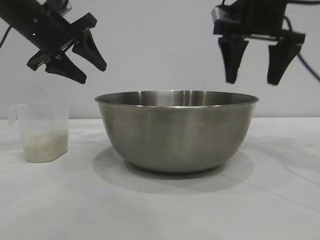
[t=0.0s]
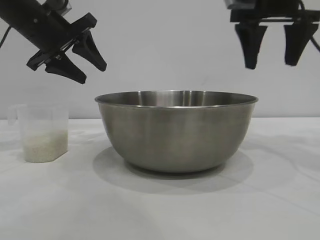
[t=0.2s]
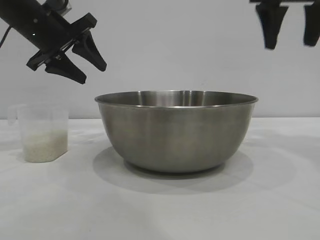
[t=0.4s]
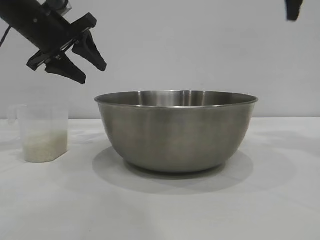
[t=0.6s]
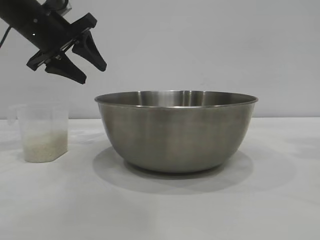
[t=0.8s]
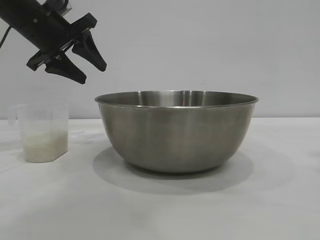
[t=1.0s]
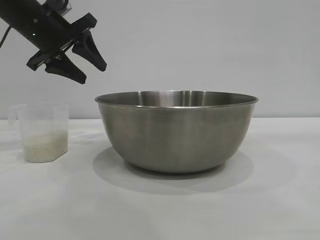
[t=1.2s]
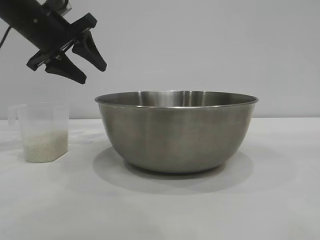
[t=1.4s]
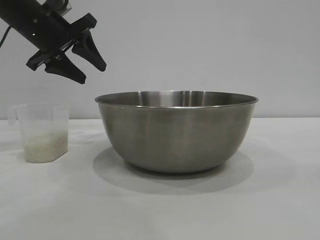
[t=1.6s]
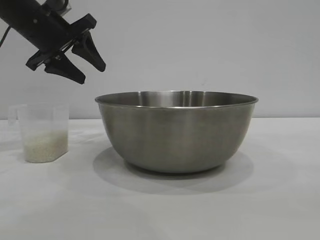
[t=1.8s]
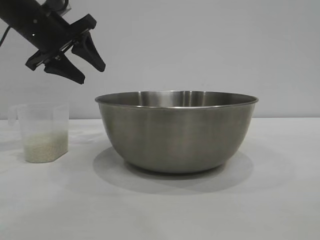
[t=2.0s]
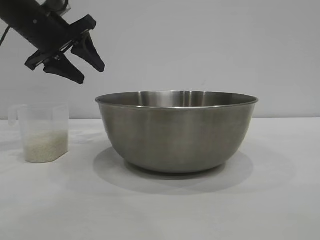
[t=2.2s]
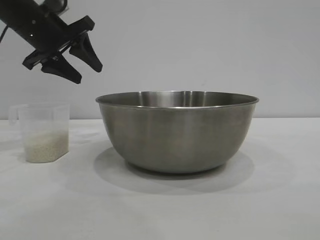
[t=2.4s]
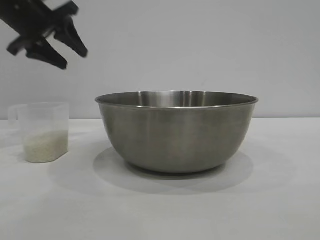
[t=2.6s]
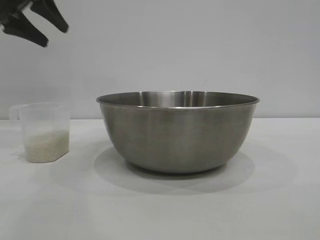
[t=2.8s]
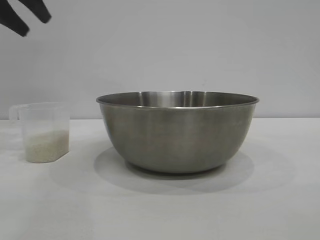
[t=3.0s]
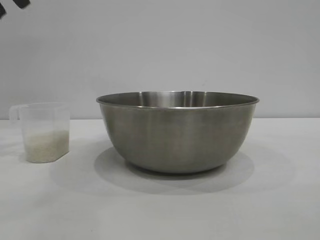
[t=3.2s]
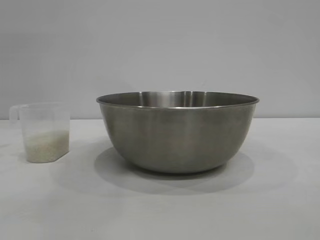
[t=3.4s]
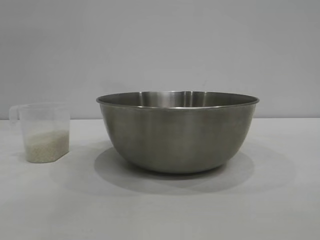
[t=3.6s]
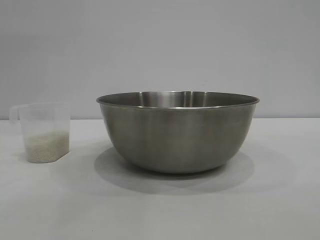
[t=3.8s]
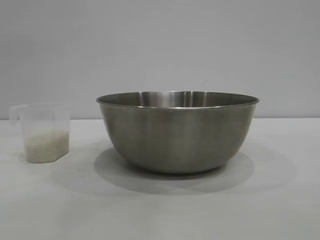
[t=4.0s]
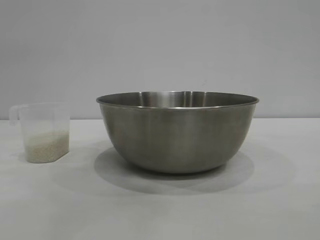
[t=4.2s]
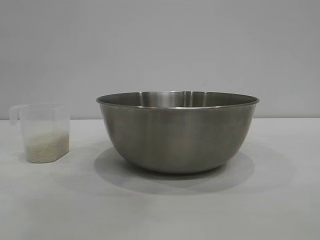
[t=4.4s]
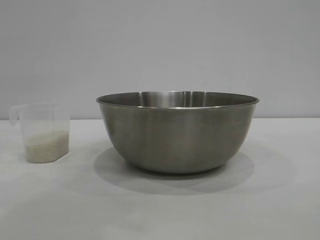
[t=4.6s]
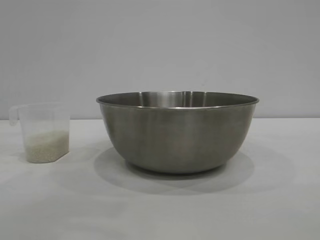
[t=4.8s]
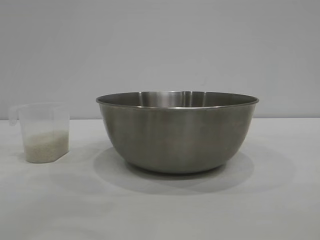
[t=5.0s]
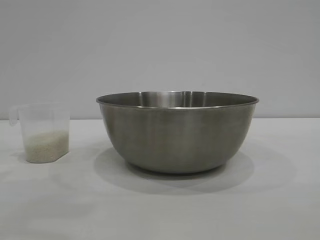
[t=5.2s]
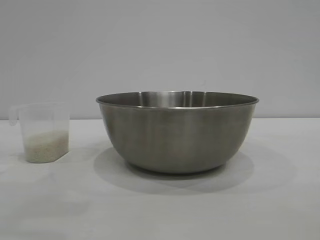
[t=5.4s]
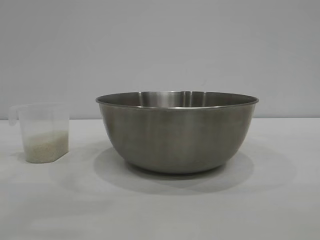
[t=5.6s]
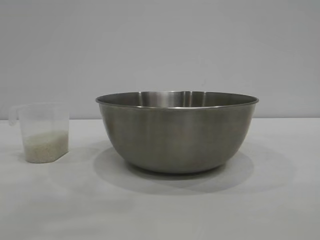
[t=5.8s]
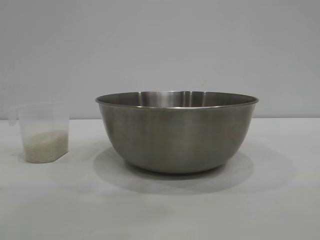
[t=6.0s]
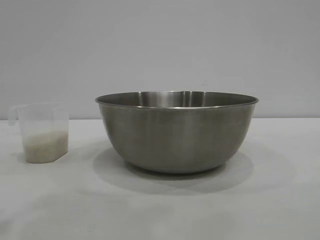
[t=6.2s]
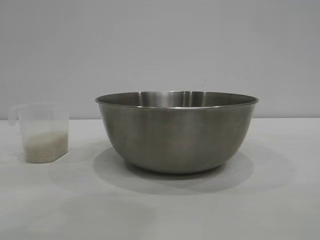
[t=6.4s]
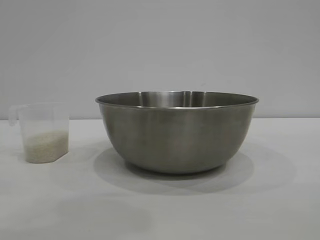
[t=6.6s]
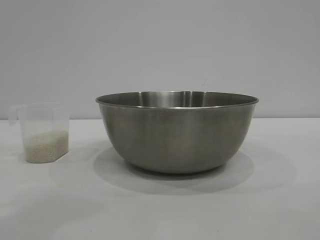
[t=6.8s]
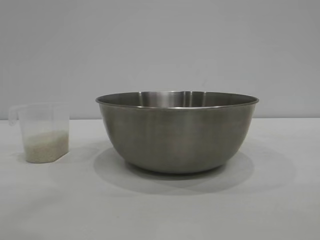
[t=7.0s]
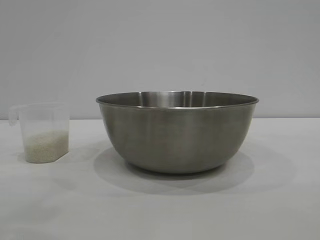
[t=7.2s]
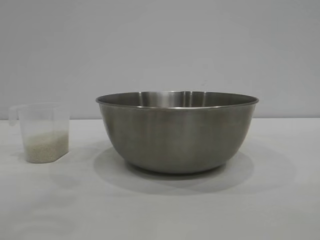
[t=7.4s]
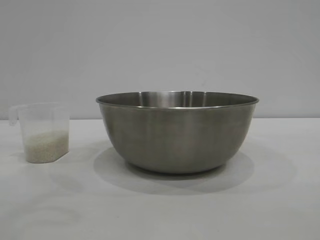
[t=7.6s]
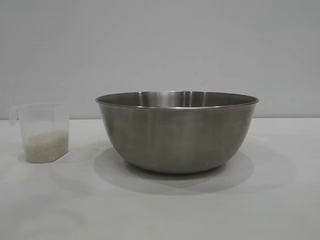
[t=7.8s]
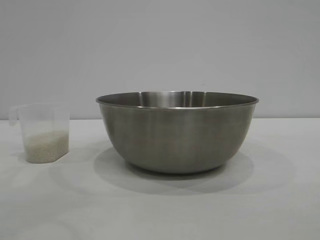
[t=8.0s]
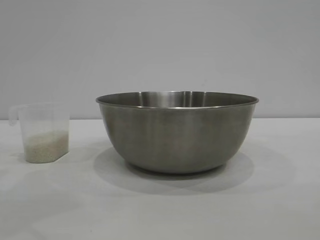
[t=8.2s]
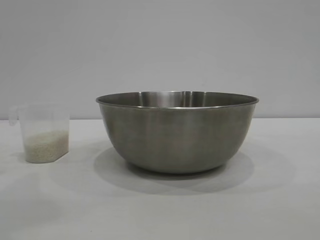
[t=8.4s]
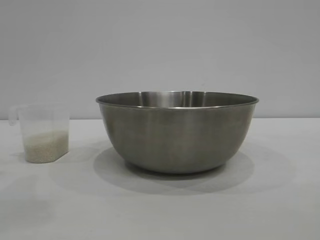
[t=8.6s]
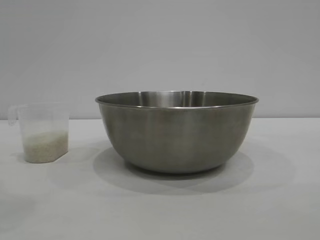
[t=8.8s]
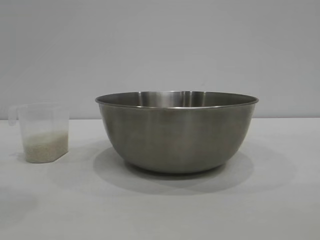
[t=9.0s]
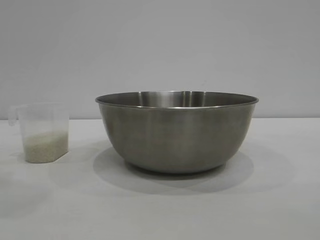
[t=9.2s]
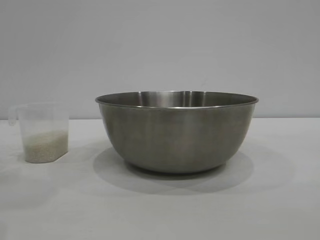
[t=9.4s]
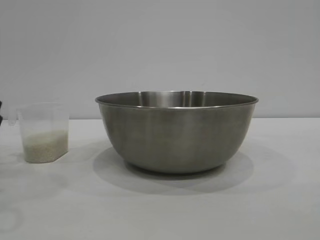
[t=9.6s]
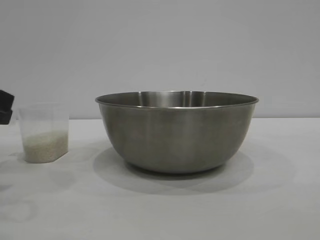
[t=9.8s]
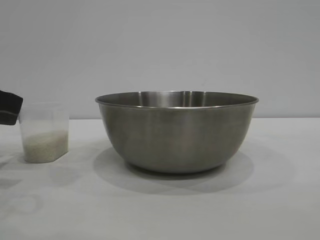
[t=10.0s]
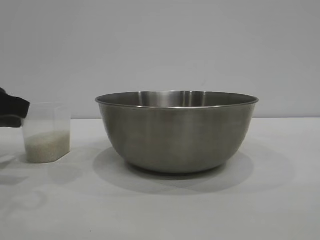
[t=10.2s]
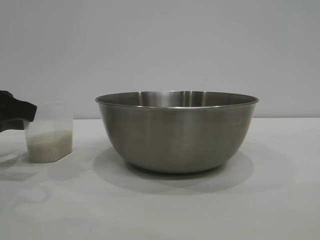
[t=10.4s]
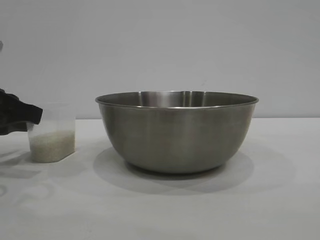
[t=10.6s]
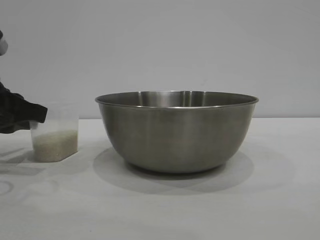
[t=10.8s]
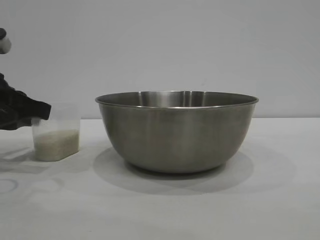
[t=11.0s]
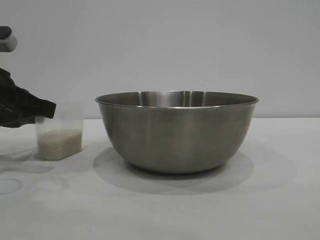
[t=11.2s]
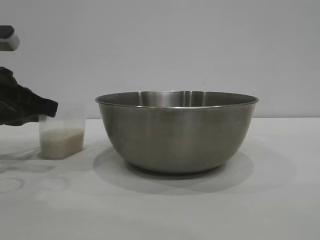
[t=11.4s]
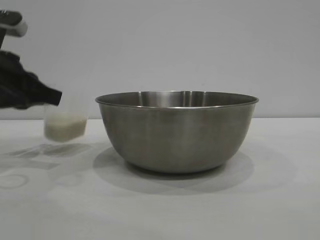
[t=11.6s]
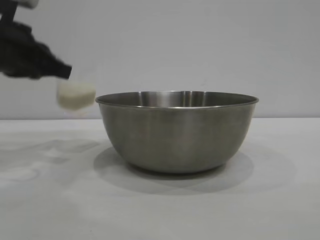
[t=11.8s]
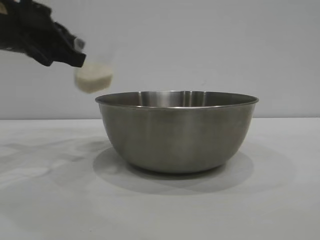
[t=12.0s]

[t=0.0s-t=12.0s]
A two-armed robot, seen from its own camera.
Task of the whole recording: the right gripper grasp the rice container and place it in the center of the table, the left gripper grasp the rice scoop and pour the rice into the rice container.
Step, t=0.0s to t=11.6s: Pick up the cup with rice in it with the left gripper.

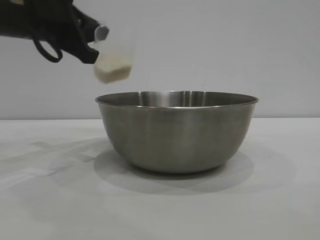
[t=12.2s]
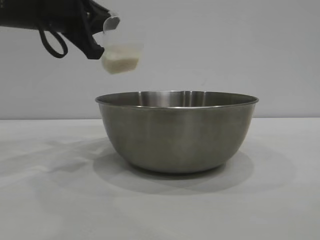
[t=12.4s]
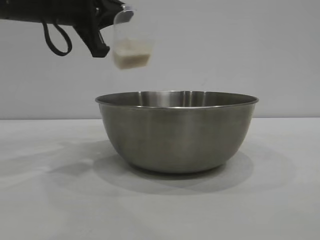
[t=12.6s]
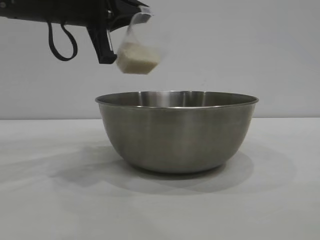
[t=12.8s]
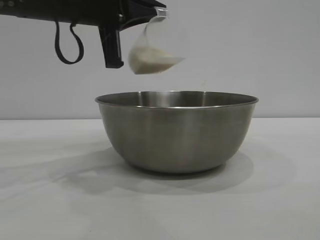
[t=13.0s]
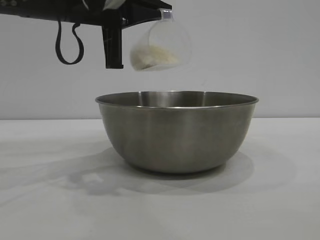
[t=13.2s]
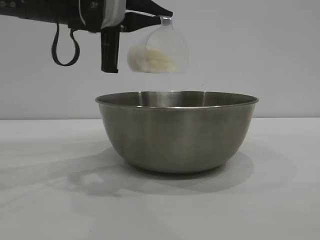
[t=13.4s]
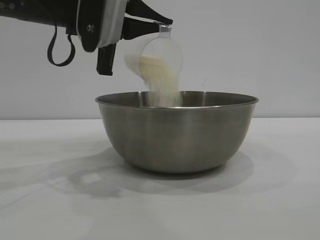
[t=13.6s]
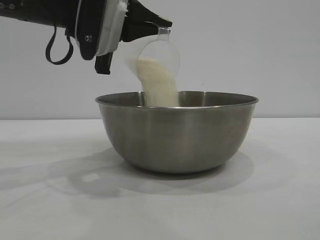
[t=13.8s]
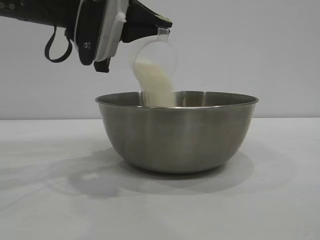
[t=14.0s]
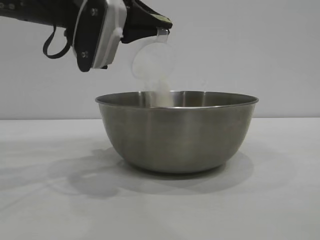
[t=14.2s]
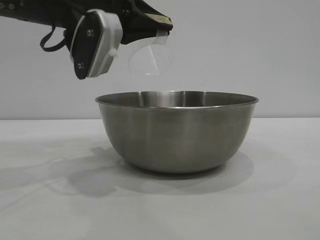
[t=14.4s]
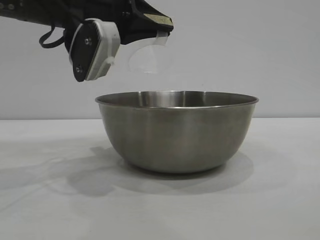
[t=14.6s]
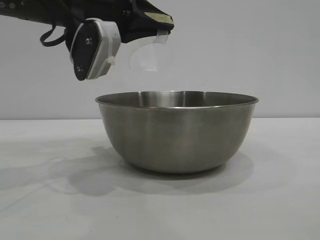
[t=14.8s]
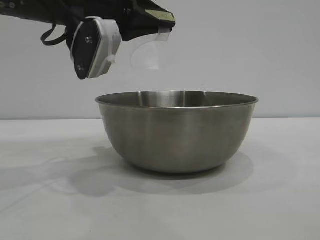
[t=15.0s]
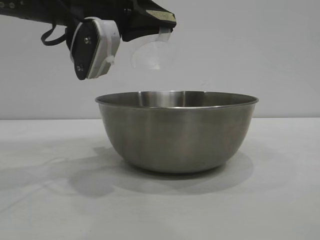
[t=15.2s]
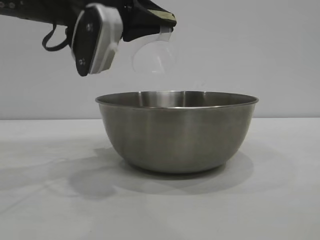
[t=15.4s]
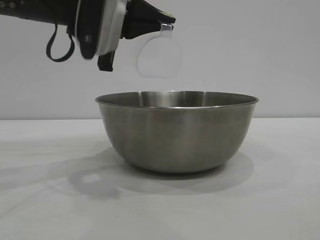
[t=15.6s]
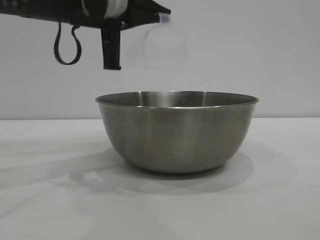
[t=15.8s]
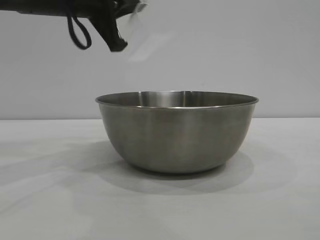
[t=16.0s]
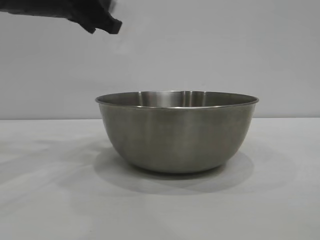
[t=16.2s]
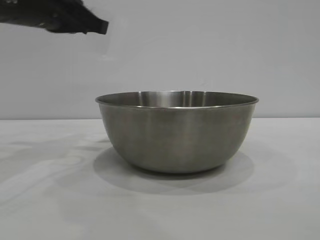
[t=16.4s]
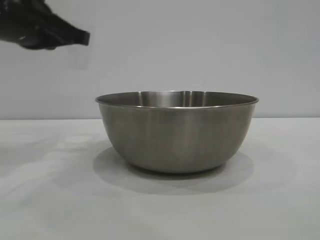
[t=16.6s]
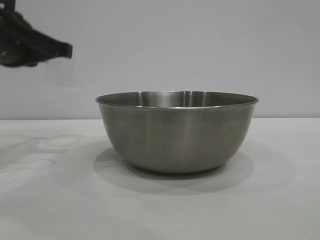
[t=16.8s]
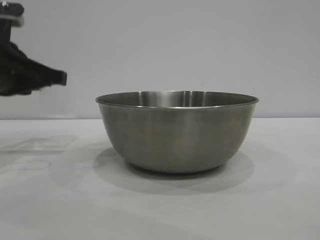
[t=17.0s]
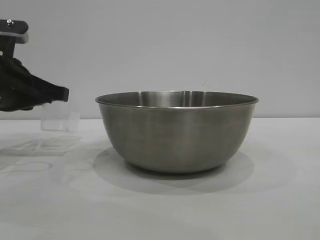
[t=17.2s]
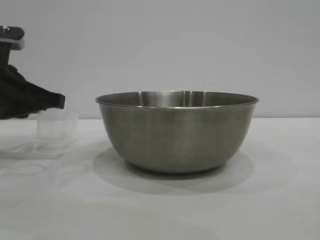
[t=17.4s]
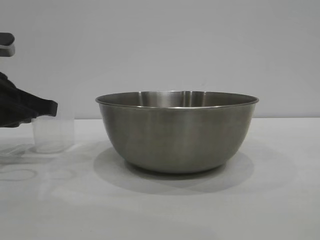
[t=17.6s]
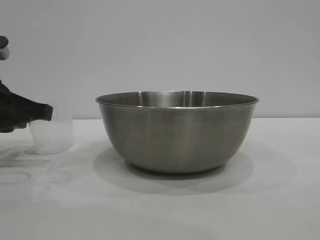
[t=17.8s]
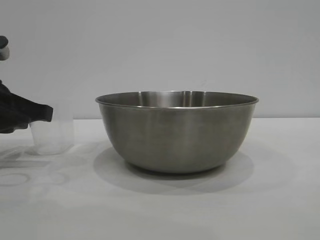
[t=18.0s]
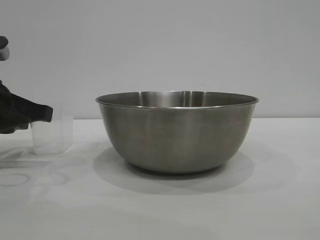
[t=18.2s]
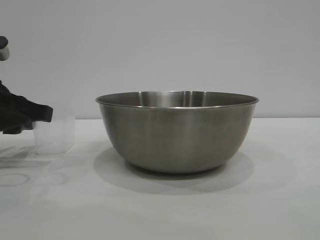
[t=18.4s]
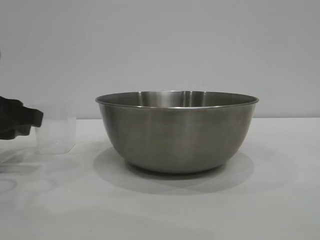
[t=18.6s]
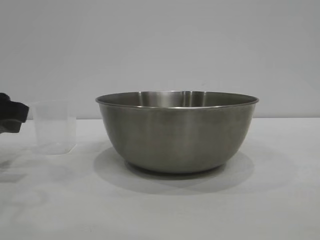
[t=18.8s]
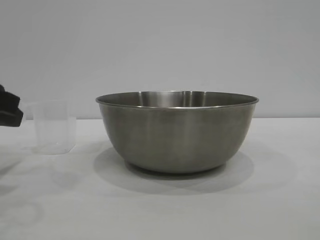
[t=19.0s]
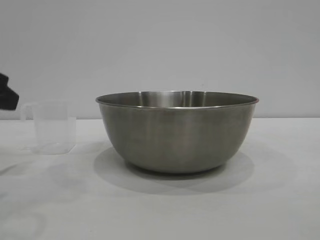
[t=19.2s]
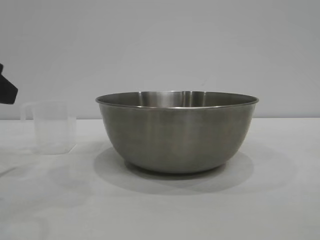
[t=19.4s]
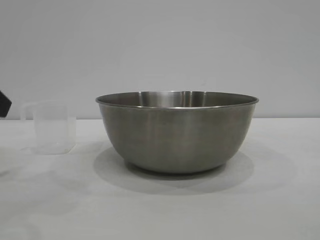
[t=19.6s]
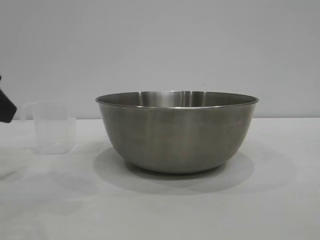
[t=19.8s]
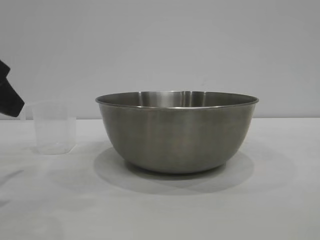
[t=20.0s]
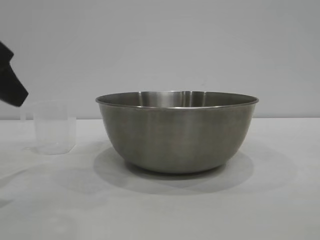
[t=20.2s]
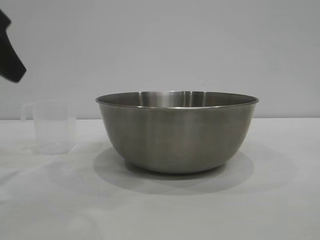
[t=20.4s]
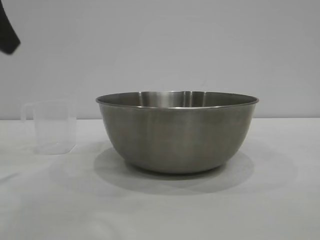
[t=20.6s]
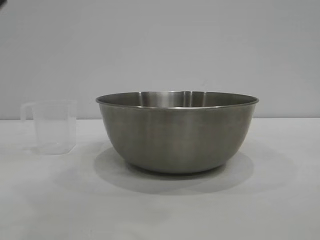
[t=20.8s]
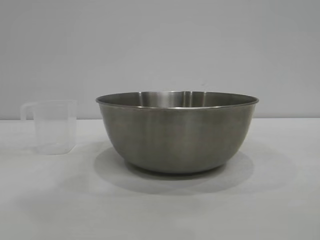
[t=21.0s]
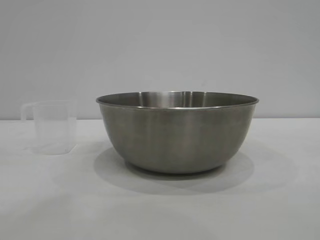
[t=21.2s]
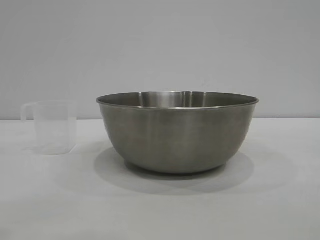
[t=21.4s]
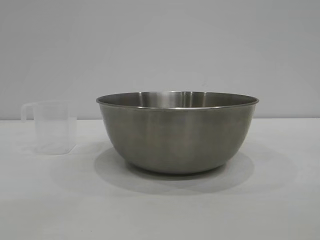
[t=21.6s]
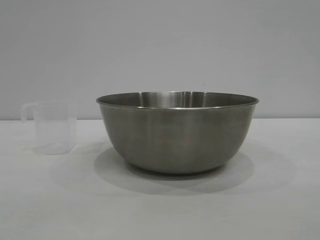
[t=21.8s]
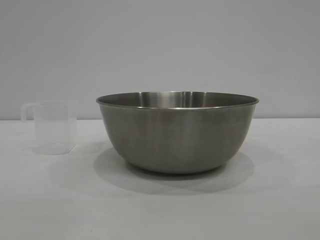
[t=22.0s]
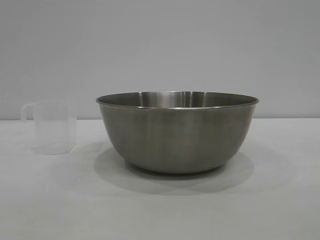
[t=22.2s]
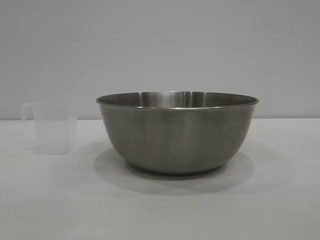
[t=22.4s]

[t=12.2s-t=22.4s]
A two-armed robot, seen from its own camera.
Task of the whole recording: the right gripper grasp the rice container and place it in the center of the table, the left gripper grasp the rice scoop and pour the rice into the rice container.
Step, t=12.2s to t=16.0s: Pour the rice from the cup into the bowl with the left gripper.
Step, t=16.2s to t=19.2s: Place the cup on the table with the left gripper.
